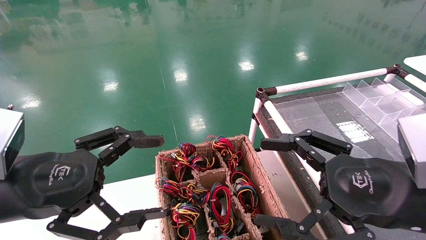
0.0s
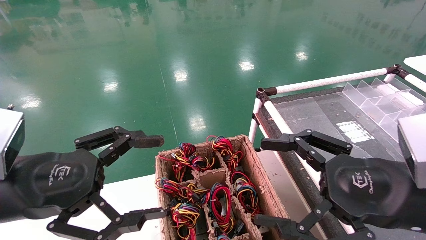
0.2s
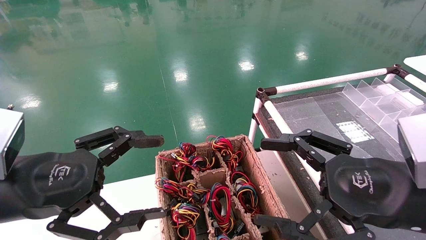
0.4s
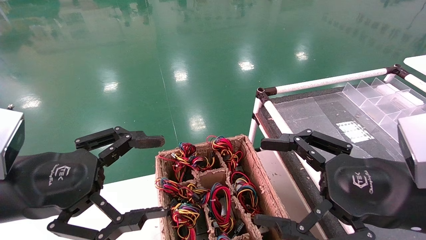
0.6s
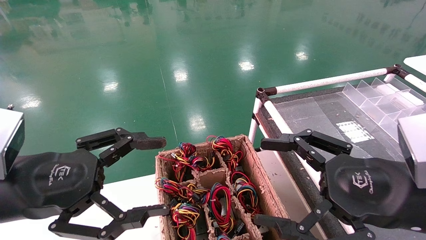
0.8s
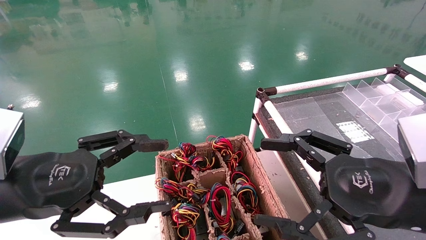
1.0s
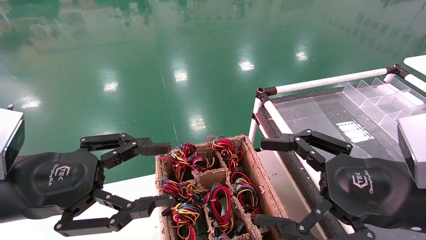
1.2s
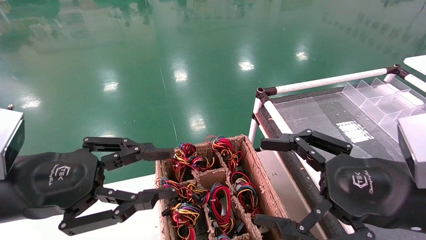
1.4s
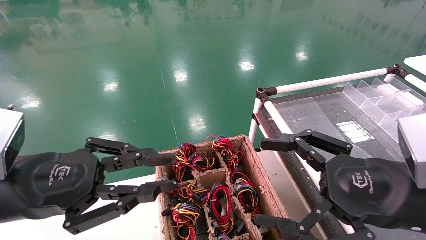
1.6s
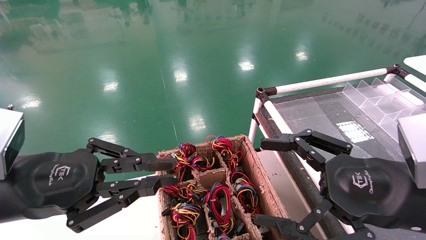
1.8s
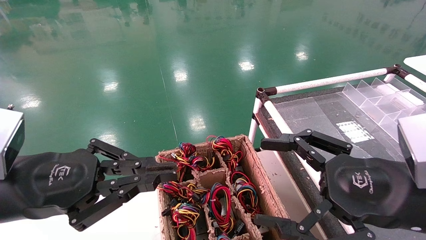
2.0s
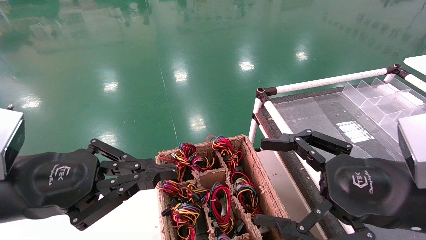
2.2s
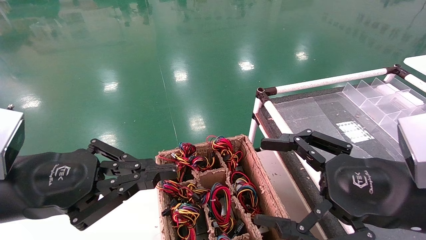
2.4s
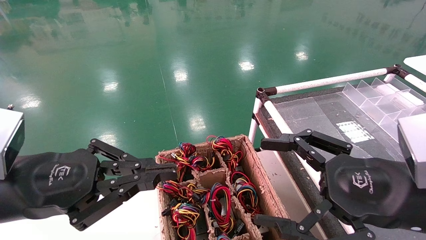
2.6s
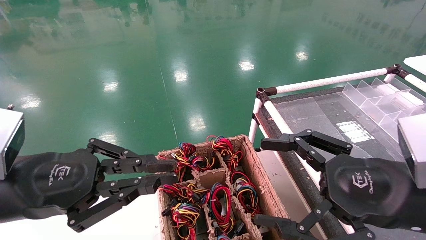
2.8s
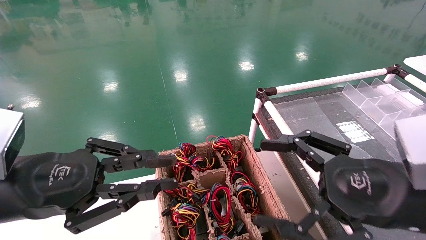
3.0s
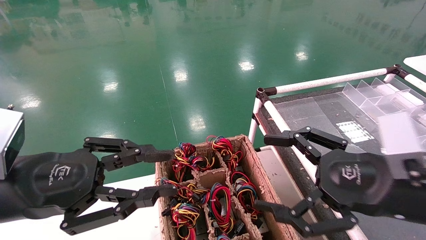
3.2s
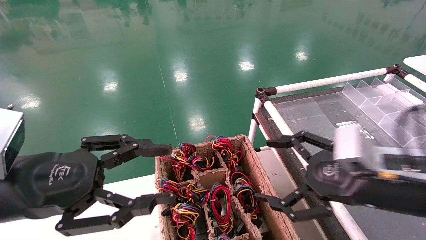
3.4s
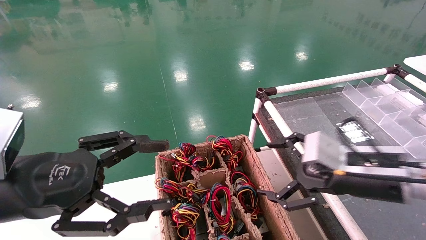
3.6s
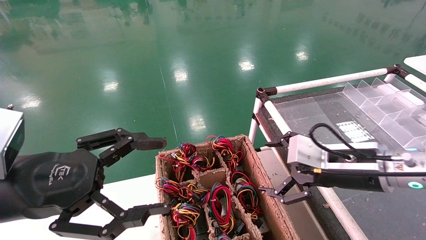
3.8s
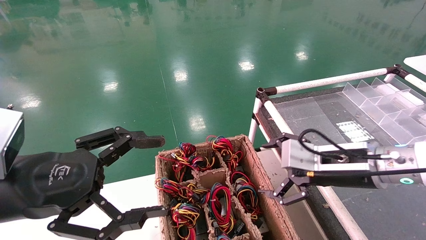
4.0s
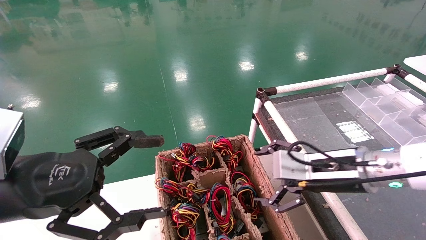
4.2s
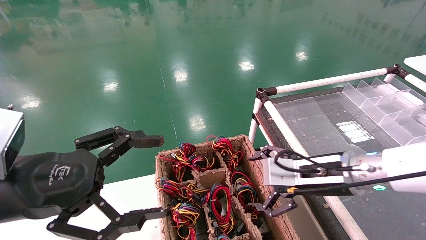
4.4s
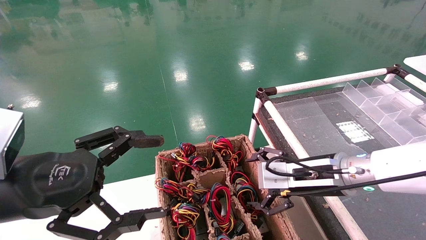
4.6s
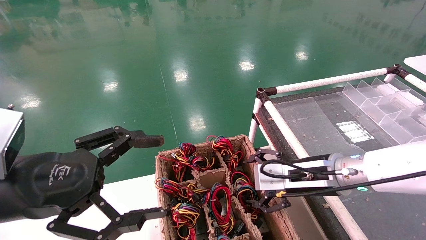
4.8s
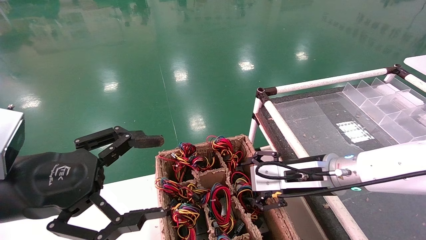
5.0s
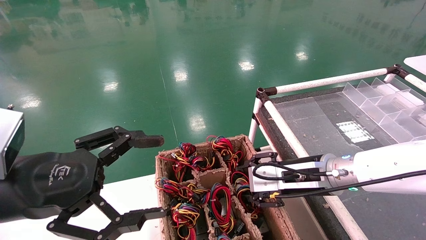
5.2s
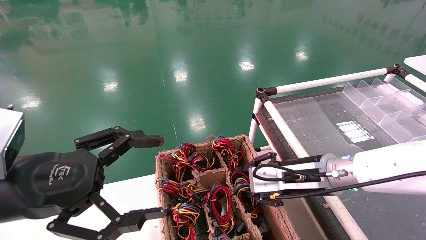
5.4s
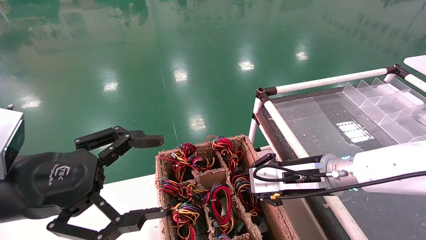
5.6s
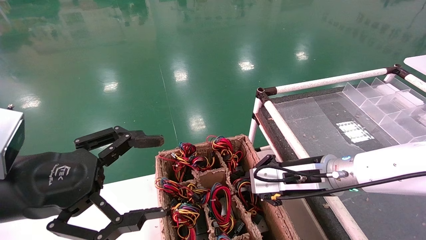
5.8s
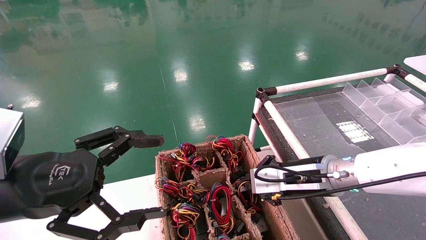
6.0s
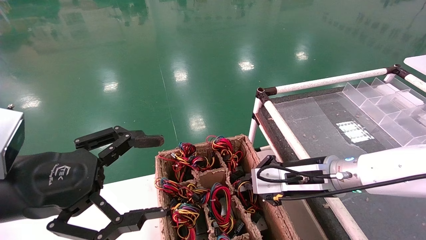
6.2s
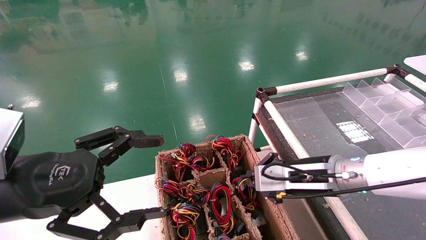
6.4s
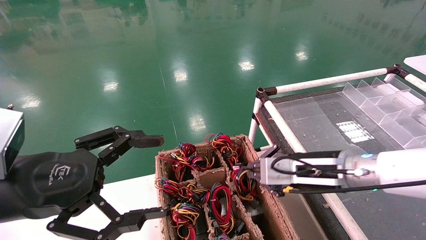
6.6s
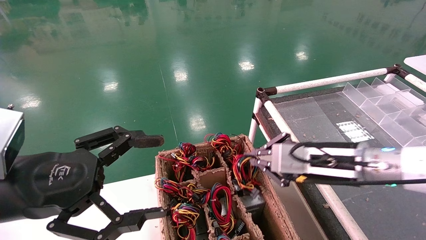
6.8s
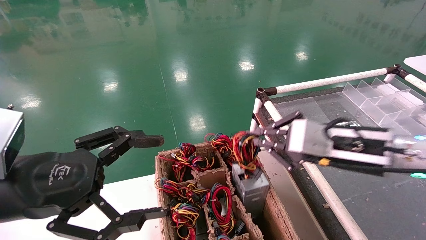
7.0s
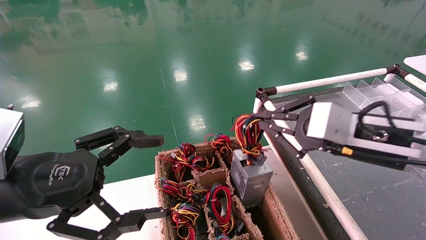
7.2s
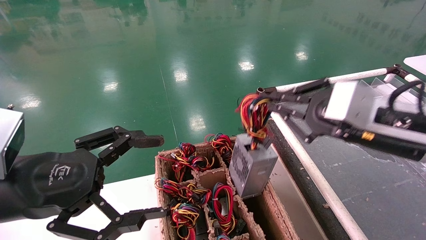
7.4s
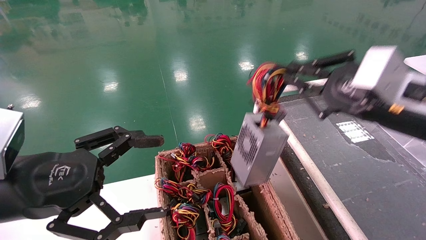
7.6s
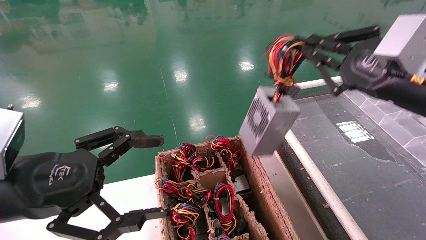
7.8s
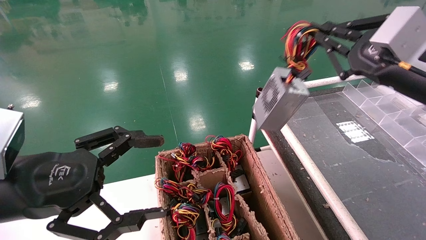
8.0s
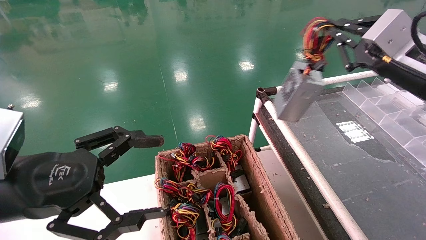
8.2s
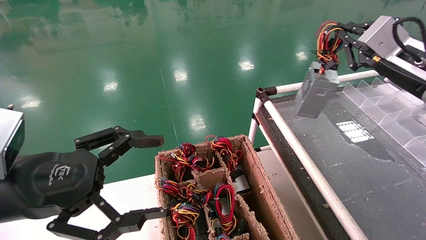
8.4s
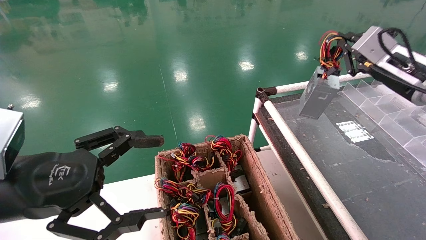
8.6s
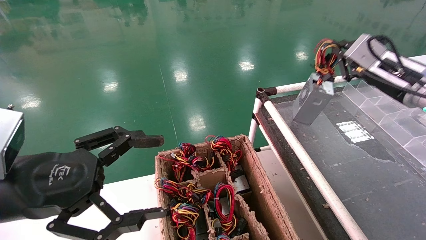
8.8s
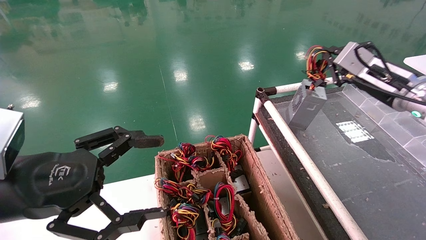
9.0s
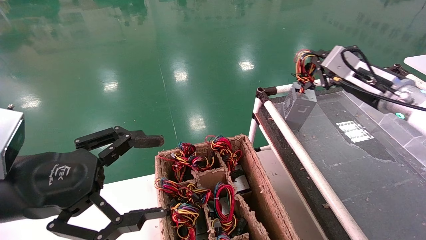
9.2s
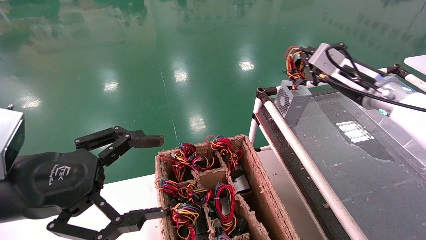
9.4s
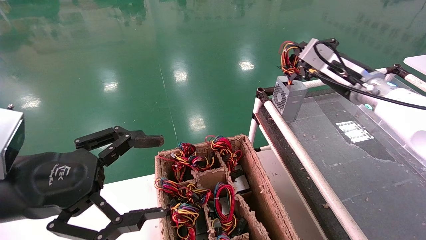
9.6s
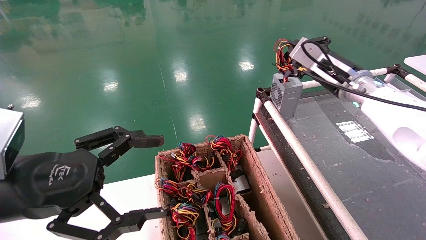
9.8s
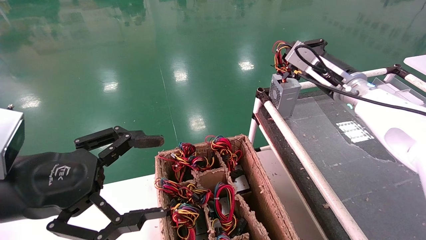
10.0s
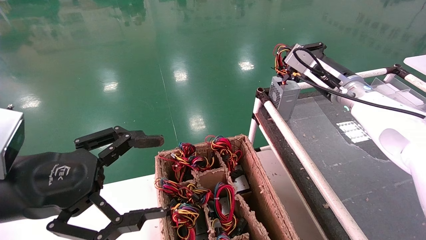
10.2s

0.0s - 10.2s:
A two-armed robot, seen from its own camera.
Step, 2.0s - 5.8s: Grab and lift the power supply from the large box.
0.0s - 1.4s: The left gripper closes.
1.4s - 3.0s: The left gripper closes up.
3.0s - 4.4s: The left gripper opens; the right gripper is displaced forward and to the left by about 15 cm.
4.4s - 5.8s: The right gripper closes its fingers.
5.8s - 7.2s: The right gripper moves upward, backward and to the right, about 10 cm.
7.2s - 8.8s: The right gripper travels forward and to the right by about 15 cm.
8.8s - 10.2s: The right gripper shifts approximately 10 cm to the left and forward.

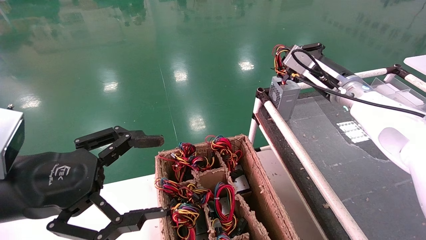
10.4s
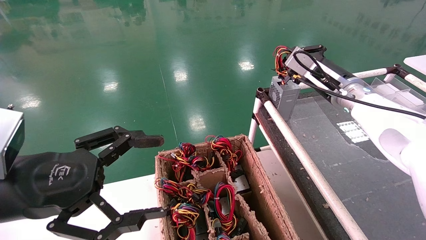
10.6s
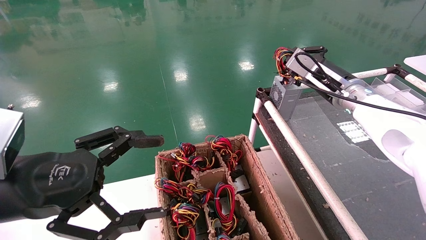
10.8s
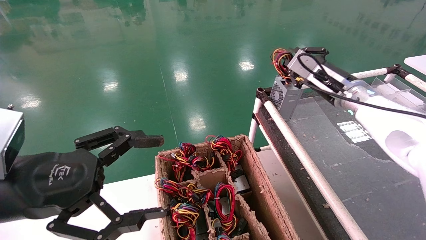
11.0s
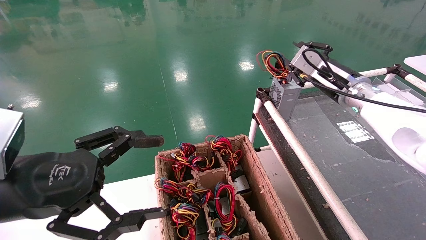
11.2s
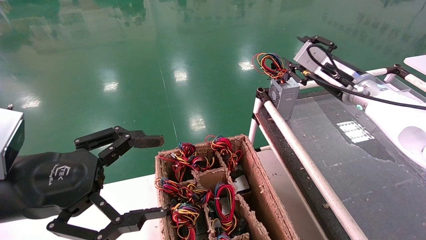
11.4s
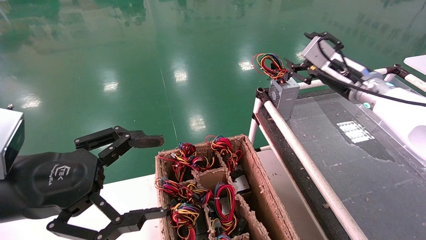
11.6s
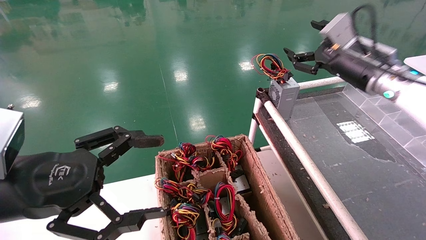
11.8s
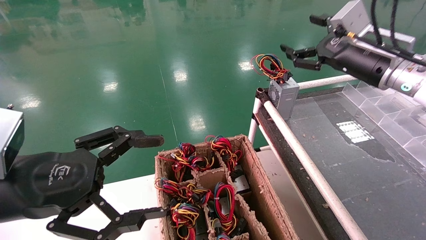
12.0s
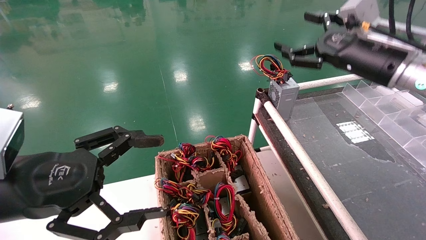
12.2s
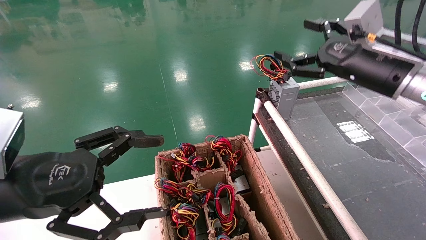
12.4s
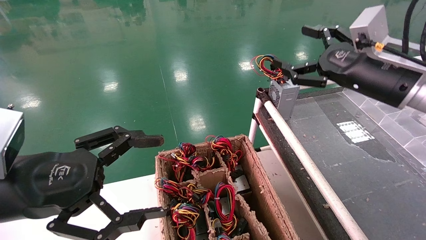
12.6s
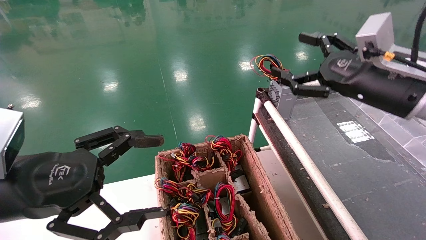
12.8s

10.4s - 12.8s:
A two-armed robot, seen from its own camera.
10.4s - 11.6s: The right gripper opens.
11.6s - 12.8s: The right gripper moves backward, approximately 10 cm, and opens.

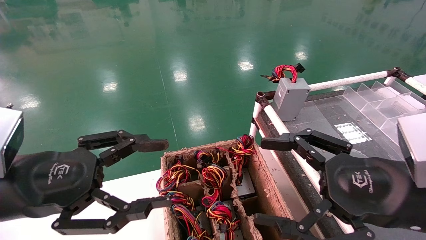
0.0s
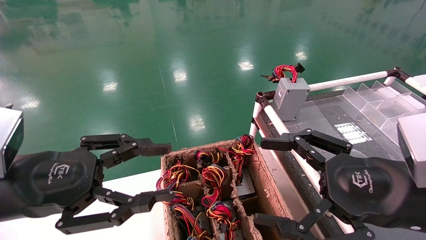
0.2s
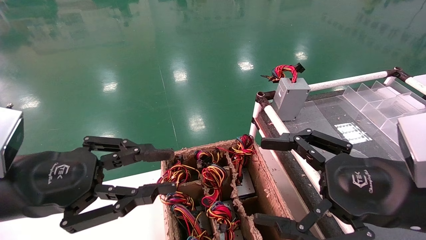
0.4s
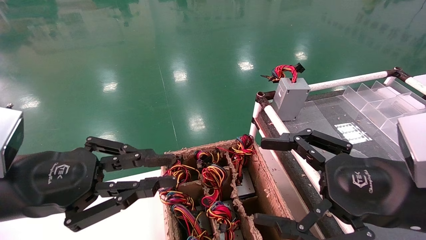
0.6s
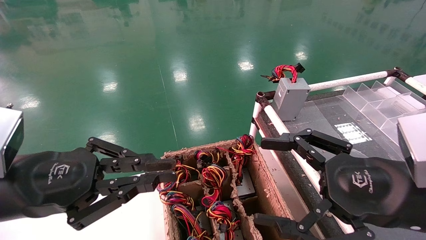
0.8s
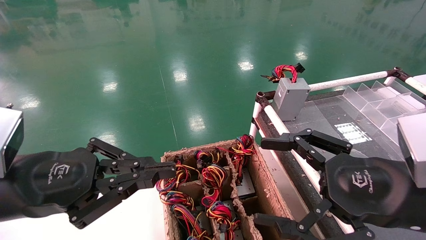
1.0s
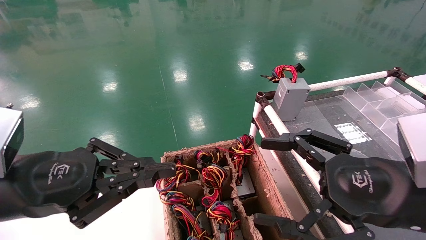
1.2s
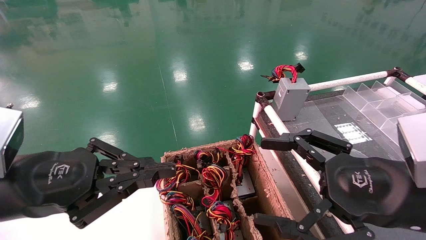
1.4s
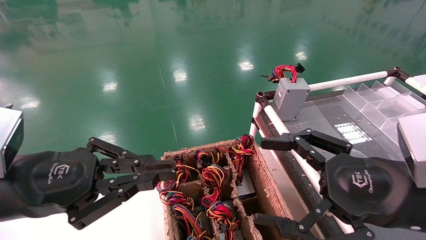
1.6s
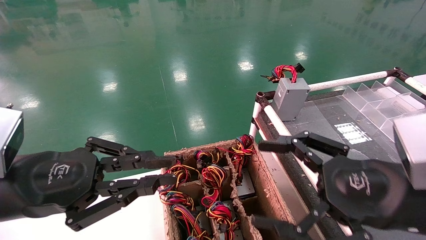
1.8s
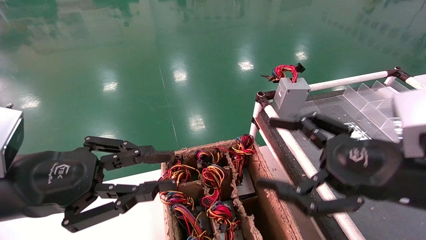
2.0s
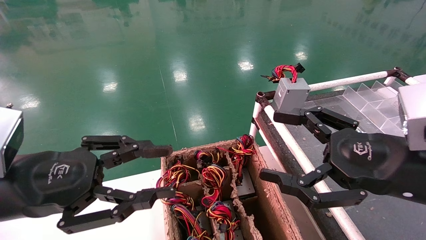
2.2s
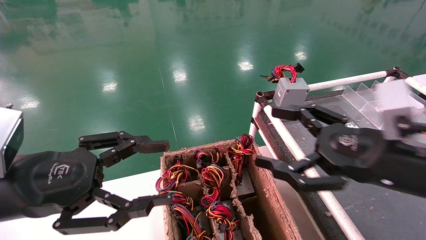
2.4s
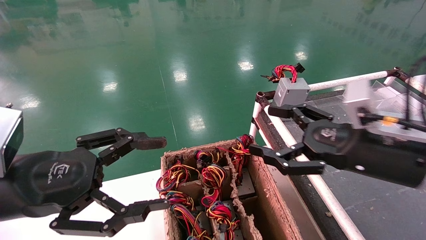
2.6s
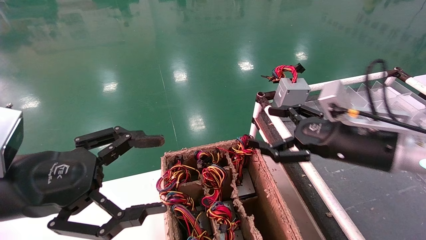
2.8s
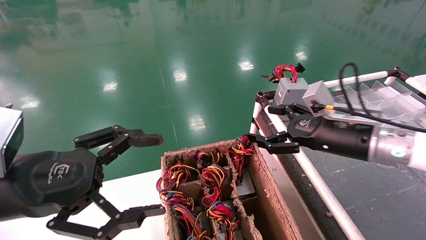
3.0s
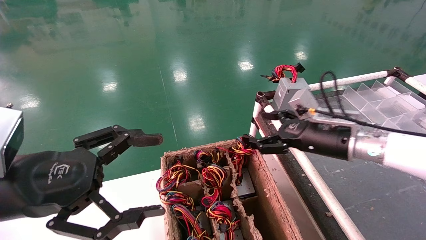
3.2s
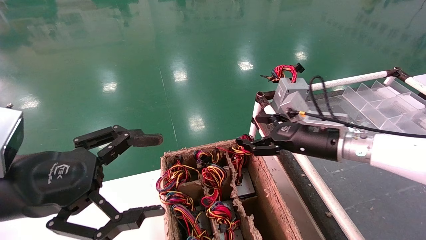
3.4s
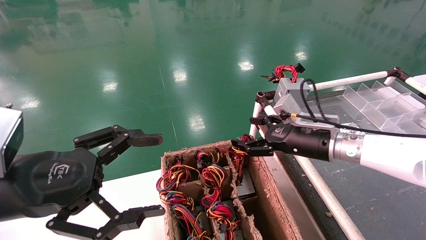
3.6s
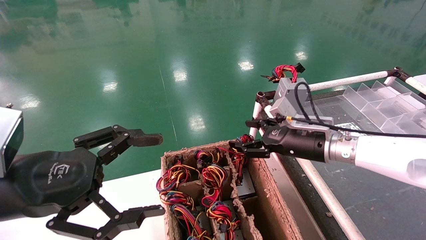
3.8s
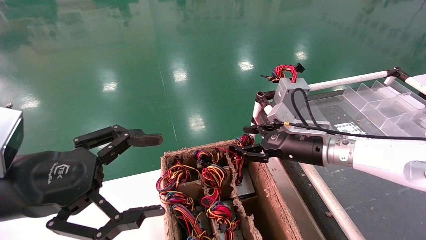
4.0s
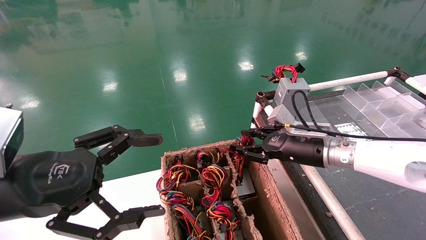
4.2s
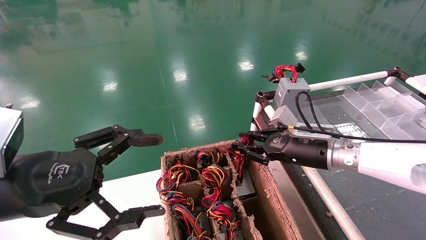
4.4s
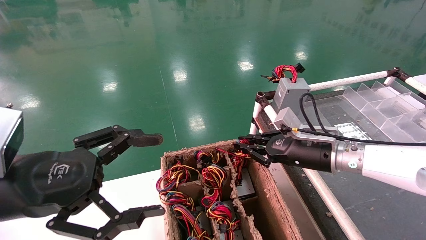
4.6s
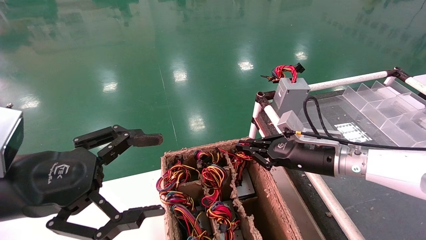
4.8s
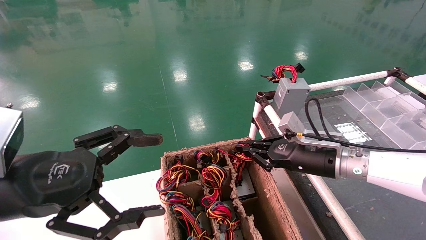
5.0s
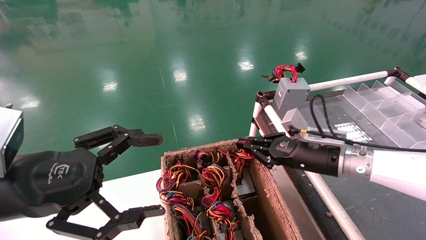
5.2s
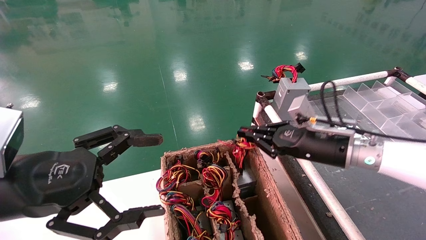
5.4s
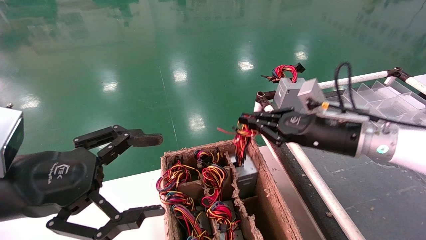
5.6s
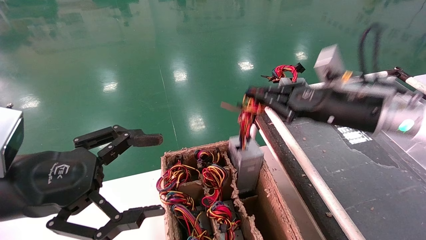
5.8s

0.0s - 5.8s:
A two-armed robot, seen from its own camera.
Step, 1.2s - 4.8s: Grab and lift the power supply from the large box.
0.0s - 1.4s: The left gripper closes its fingers.
1.4s - 2.8s: The left gripper opens its fingers, while the right gripper is displaced forward by some 15 cm.
2.8s - 4.4s: The right gripper is displaced forward and downward by some 10 cm, and closes its fingers.
4.4s - 5.8s: The right gripper travels upward and backward by some 15 cm, and closes.
